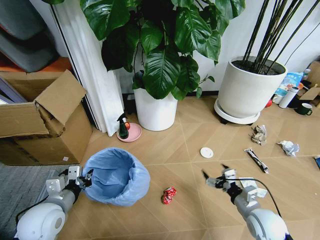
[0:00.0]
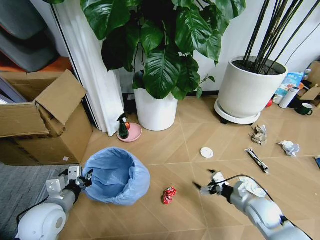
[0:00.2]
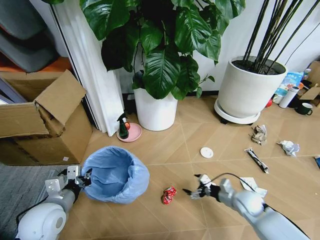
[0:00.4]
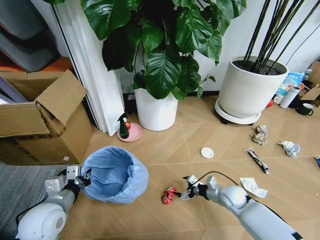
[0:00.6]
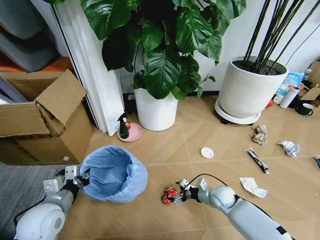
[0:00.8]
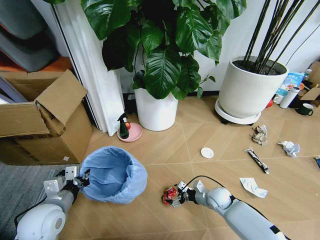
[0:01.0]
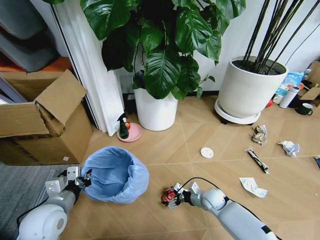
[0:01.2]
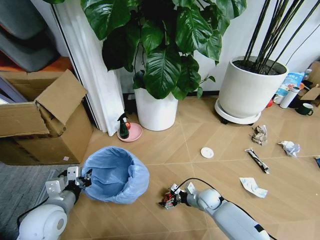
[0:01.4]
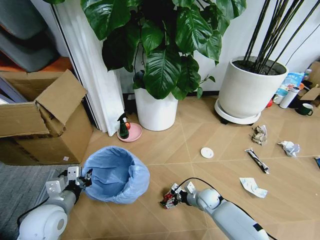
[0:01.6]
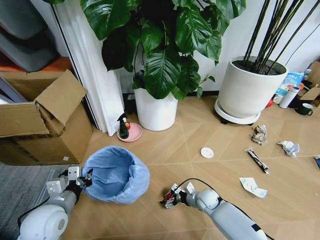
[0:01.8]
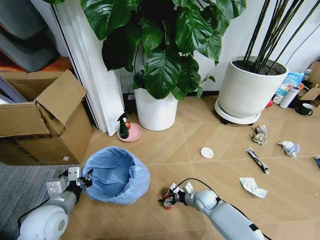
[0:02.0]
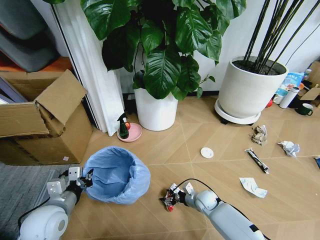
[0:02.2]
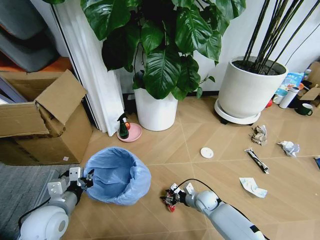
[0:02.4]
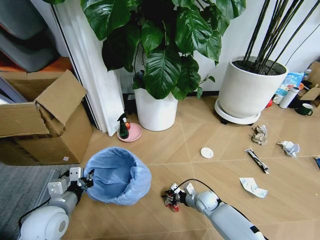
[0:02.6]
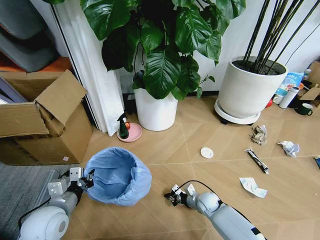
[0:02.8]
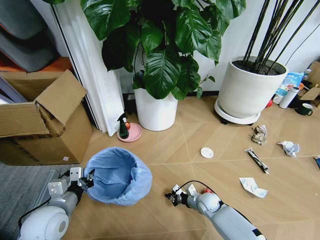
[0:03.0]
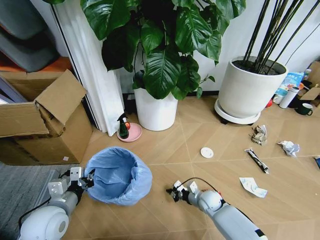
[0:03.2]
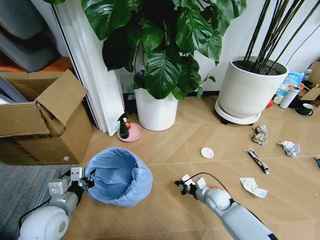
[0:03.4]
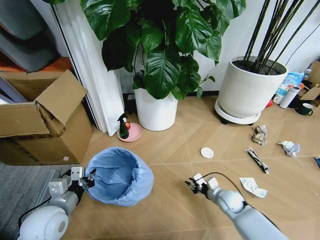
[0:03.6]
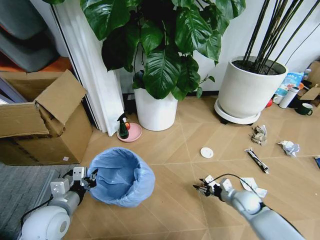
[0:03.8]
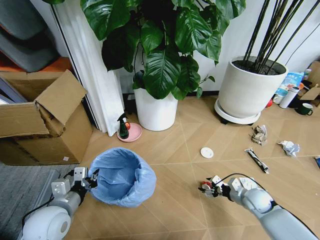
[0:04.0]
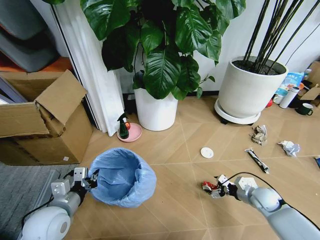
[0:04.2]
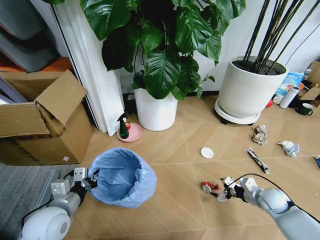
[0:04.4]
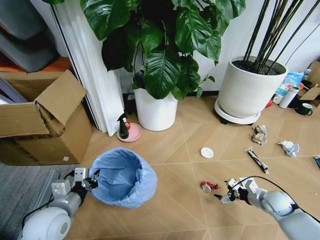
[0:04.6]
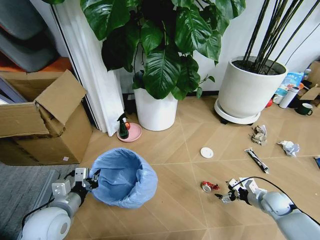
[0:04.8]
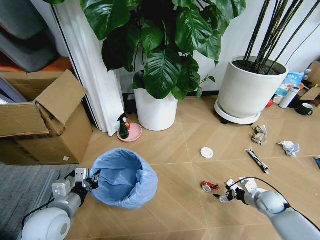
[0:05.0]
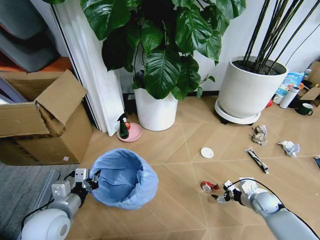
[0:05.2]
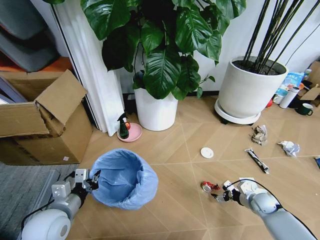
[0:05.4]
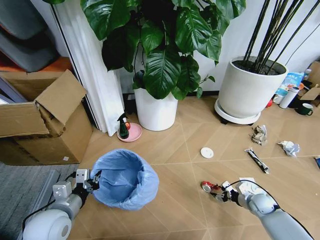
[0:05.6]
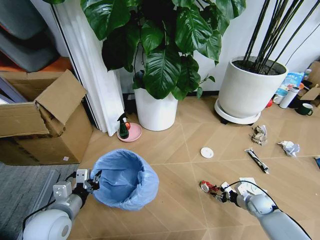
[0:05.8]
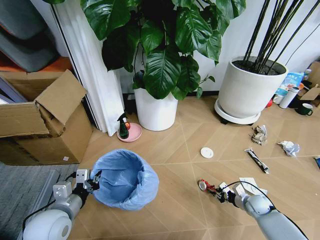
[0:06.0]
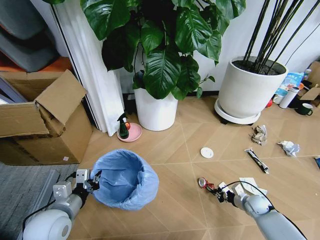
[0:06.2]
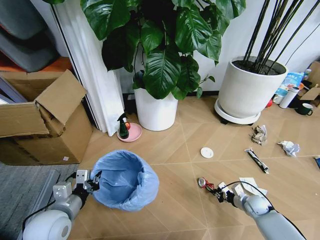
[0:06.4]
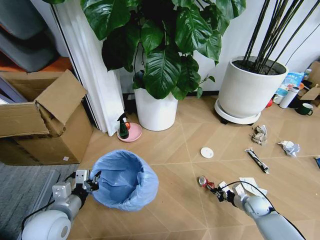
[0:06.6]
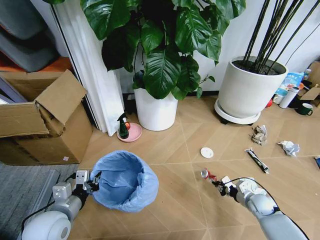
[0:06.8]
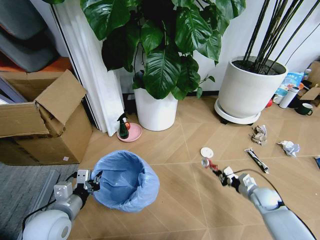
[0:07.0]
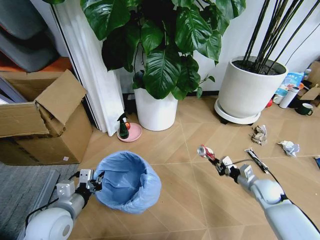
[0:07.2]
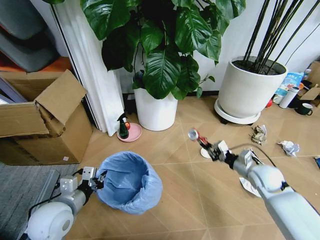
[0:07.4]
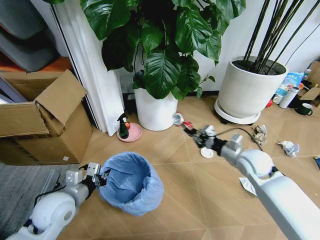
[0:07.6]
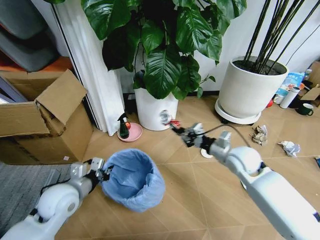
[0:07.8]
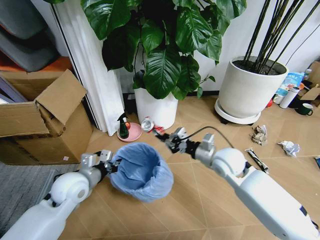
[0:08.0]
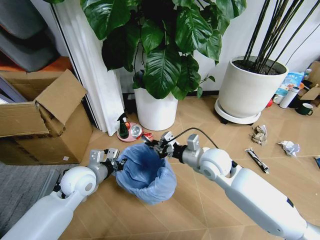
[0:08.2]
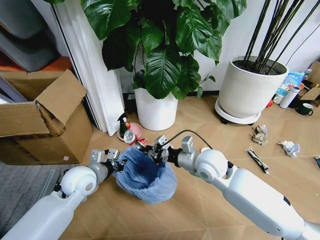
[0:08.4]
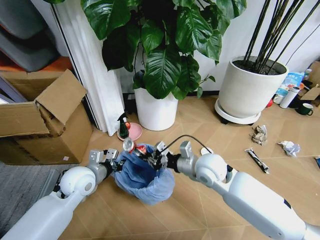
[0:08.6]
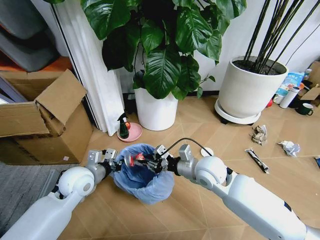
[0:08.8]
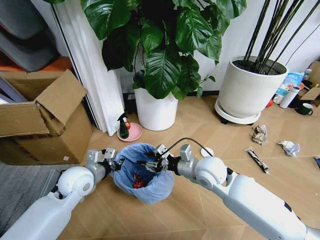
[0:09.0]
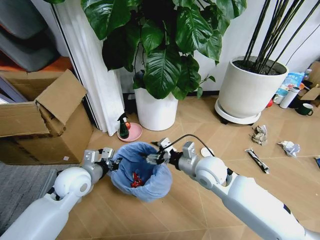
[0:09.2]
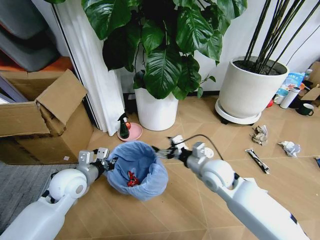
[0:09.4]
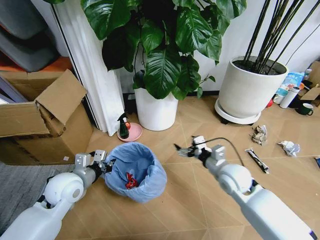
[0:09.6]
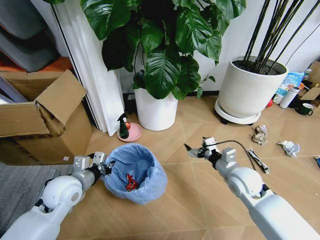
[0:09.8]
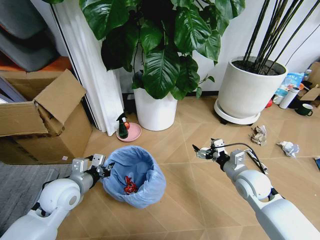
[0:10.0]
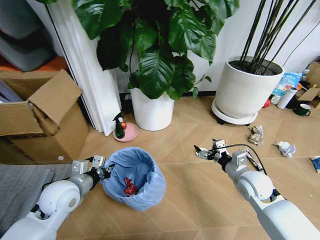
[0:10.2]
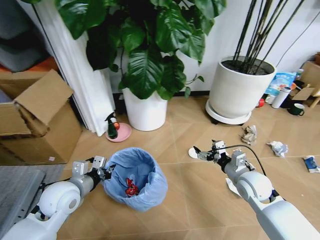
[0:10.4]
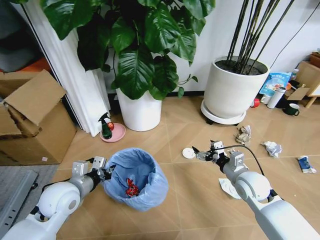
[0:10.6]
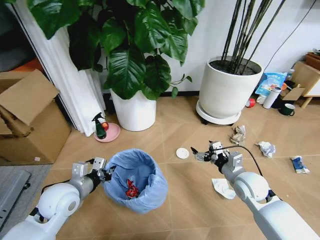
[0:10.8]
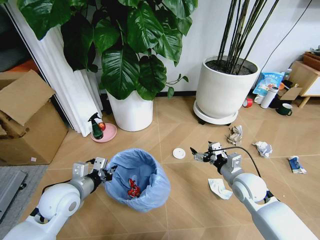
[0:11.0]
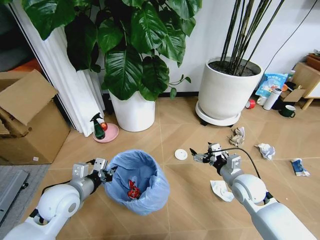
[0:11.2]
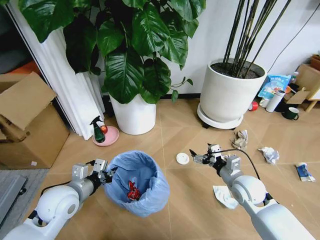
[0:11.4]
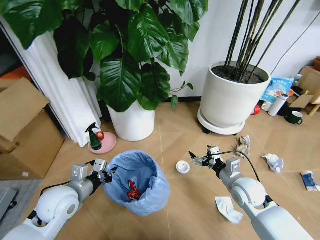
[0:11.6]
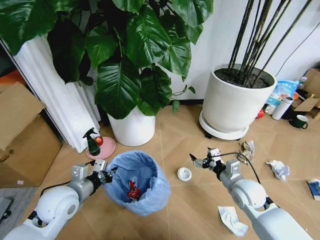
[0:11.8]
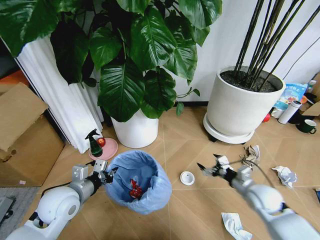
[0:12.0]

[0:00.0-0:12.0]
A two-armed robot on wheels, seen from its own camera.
Task of the whole recording: Pick up the trash bin and place the garbage on the floor into it.
0:00.0 to 0:01.6: The right gripper heads downward, forward and to the left, covering roughly 25 cm.
0:01.6 to 0:03.0: The right gripper closes its fingers.
0:03.0 to 0:04.4: The right gripper moves to the right and upward, approximately 25 cm, and opens its fingers.
0:04.4 to 0:06.0: The right gripper goes roughly 10 cm downward, and closes its fingers.
0:06.0 to 0:07.6: The right gripper moves upward, approximately 25 cm.
0:07.6 to 0:09.0: The left gripper shifts approximately 10 cm forward. The right gripper goes about 20 cm to the left, and opens.
0:09.0 to 0:10.4: The right gripper shifts about 15 cm to the right, and opens its fingers; the left gripper moves about 5 cm.
0:10.4 to 0:12.0: The right gripper ends up some 5 cm from where it was.

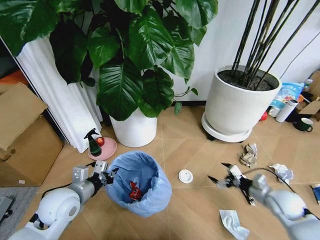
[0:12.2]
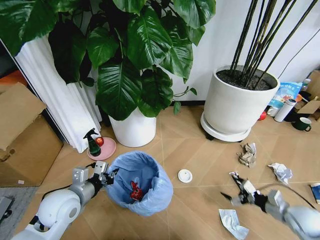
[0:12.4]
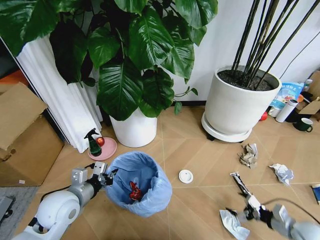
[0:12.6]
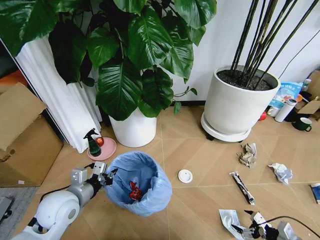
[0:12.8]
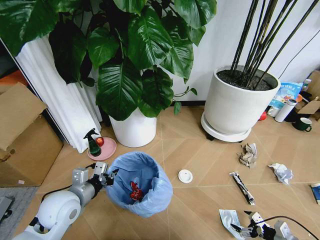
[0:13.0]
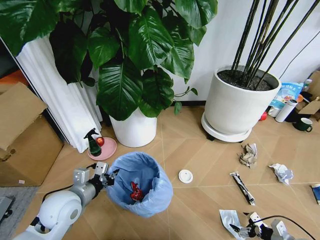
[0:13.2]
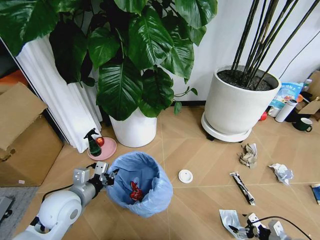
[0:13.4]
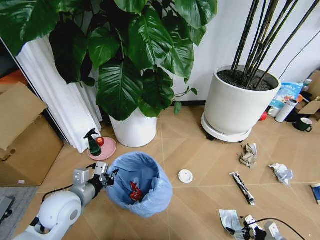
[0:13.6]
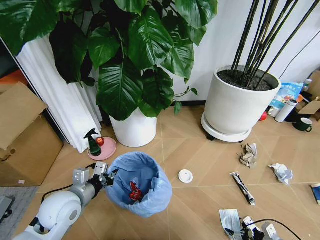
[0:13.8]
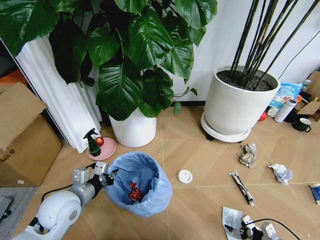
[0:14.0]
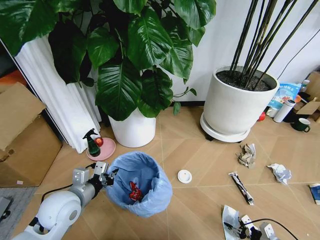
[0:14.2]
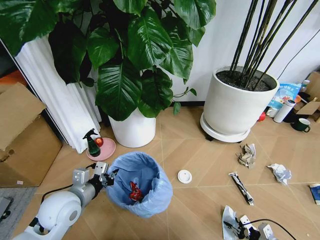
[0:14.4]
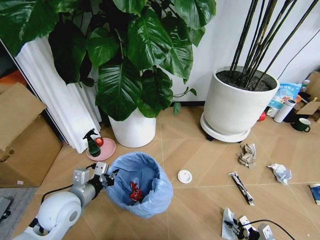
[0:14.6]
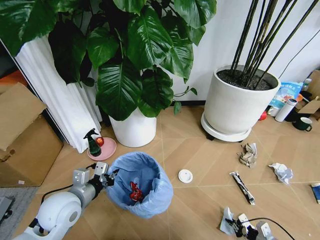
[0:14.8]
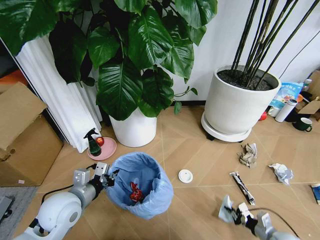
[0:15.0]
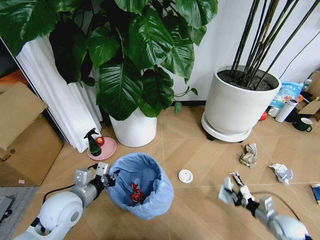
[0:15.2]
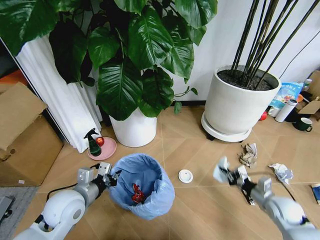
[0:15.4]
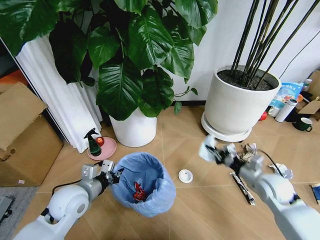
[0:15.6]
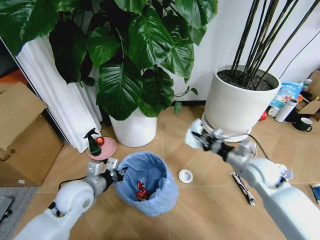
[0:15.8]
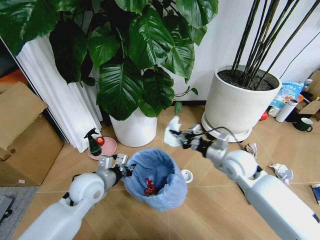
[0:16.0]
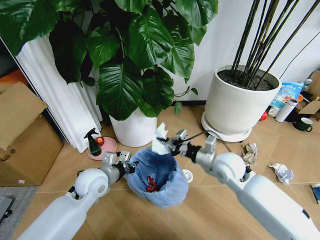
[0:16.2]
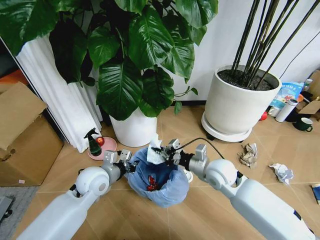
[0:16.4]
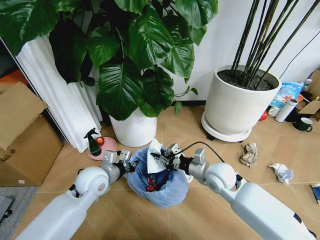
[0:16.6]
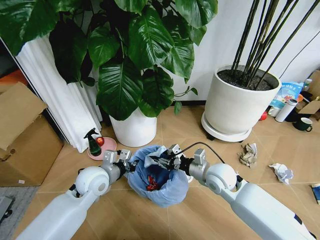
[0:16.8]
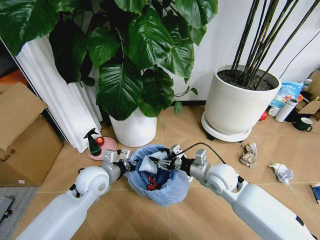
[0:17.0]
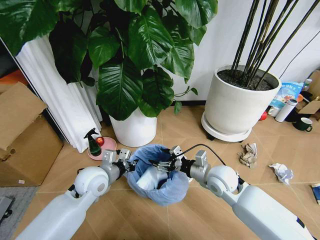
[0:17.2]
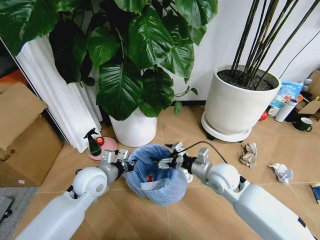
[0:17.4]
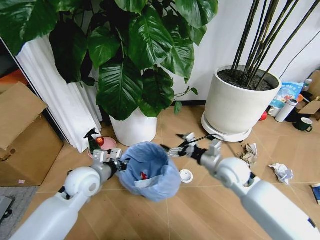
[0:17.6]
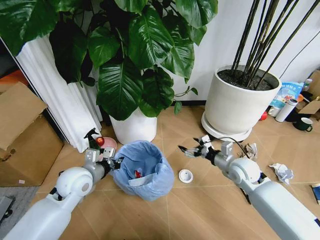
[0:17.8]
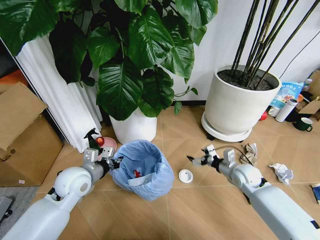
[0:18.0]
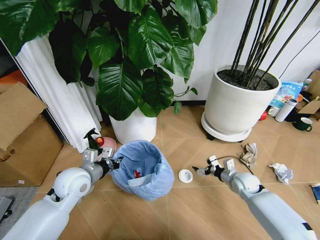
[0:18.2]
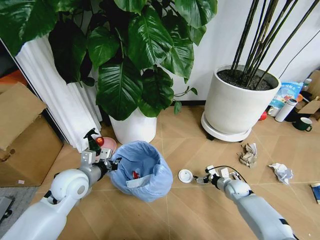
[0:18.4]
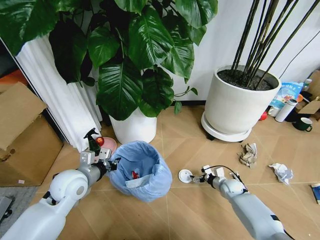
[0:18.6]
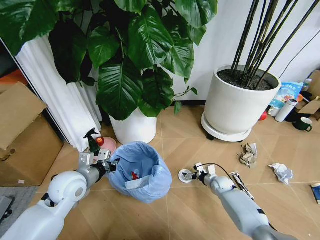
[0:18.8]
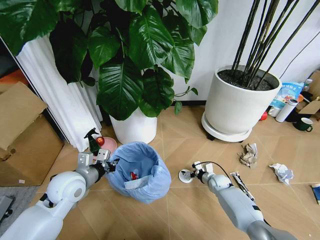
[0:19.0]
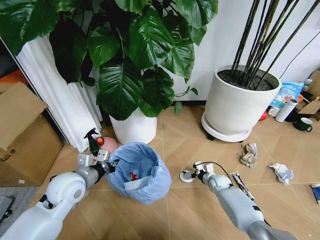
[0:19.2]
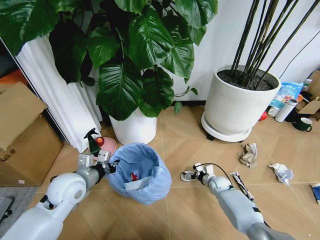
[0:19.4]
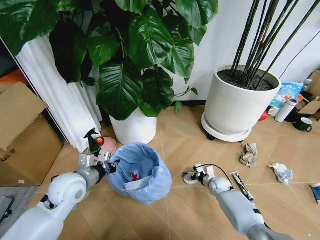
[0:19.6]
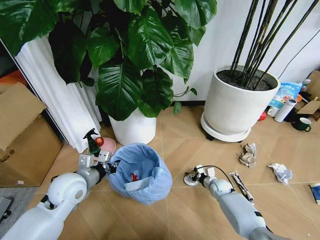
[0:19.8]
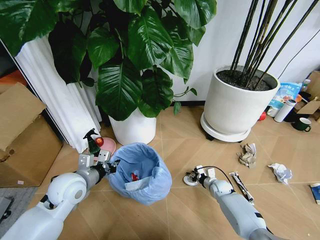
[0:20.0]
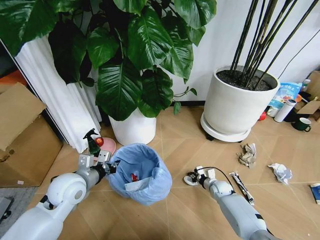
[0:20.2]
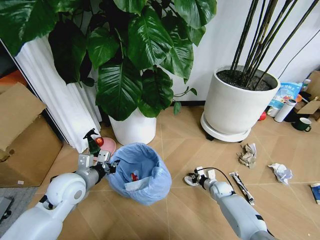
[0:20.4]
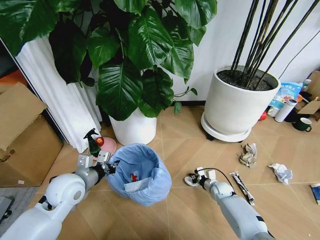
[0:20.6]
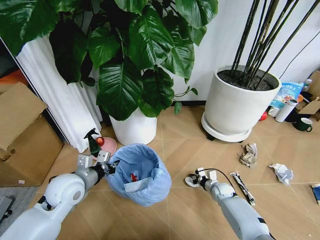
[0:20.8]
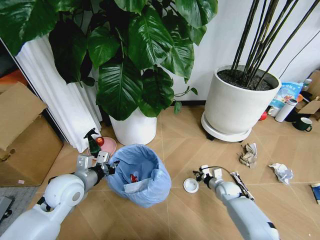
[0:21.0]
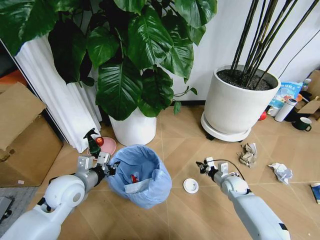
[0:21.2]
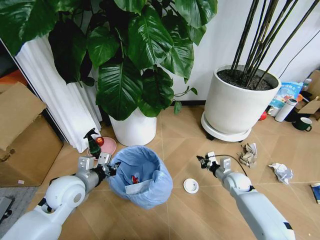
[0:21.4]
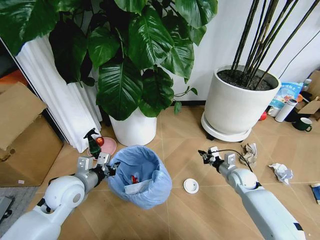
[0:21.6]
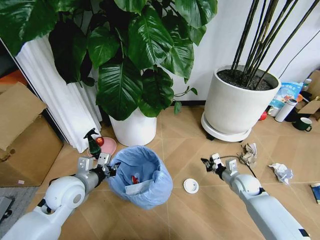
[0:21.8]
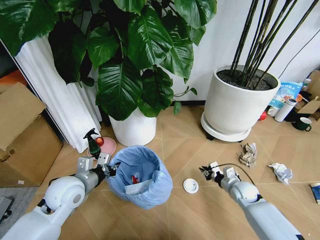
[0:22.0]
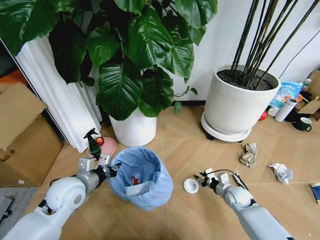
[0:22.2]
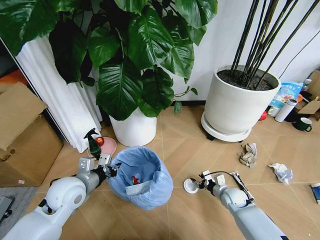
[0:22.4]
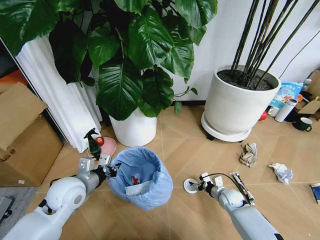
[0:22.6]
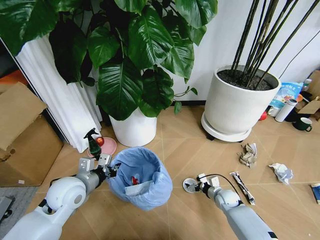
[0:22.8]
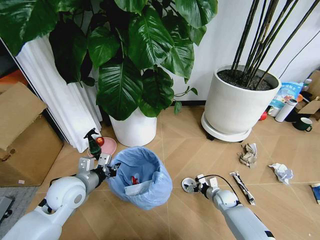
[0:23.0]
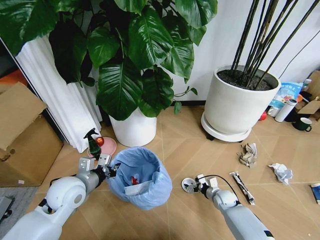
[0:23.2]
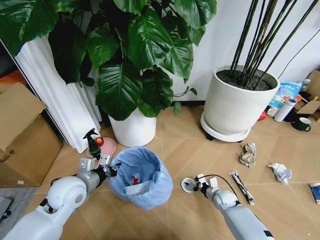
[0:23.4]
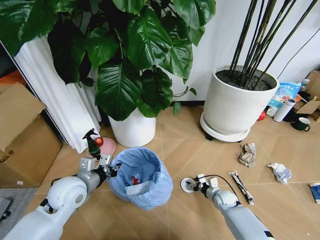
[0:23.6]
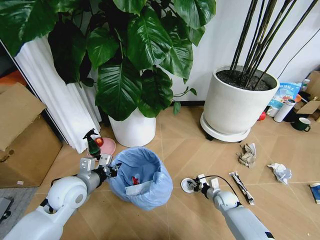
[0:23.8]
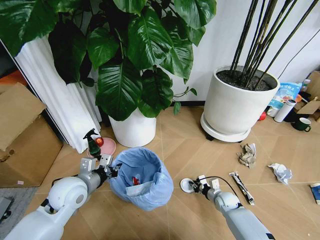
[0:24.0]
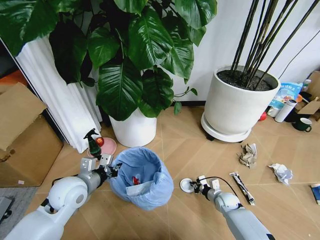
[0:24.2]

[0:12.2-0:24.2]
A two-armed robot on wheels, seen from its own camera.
Task of the whole recording: Pick up the trash bin and place the garbage on the floor into it.
0:12.2 to 0:13.8: The right gripper shifts approximately 20 cm downward and backward.
0:13.8 to 0:15.2: The right gripper goes approximately 10 cm forward and upward, and closes its fingers.
0:15.2 to 0:16.6: The right gripper is displaced to the left, upward and forward by approximately 30 cm. Meanwhile the left gripper is displaced forward and to the right by roughly 10 cm.
0:16.6 to 0:18.2: The right gripper goes approximately 20 cm to the right and downward, and opens up; the left gripper shifts by about 5 cm.
0:18.2 to 0:19.8: The right gripper moves downward and to the left, about 10 cm, and closes up.
0:19.8 to 0:21.2: The right gripper goes about 5 cm upward, and closes its fingers.
0:21.2 to 0:22.6: The right gripper ends up approximately 5 cm from where it was, and opens up.
0:22.6 to 0:24.2: The right gripper closes up.
